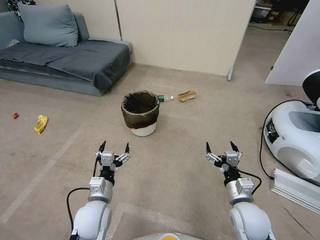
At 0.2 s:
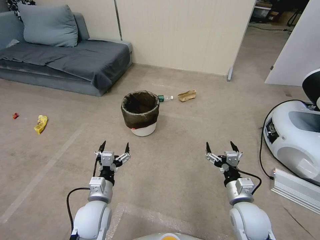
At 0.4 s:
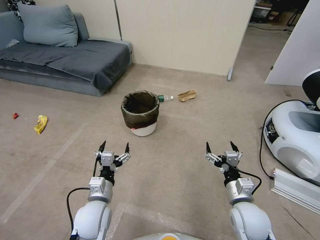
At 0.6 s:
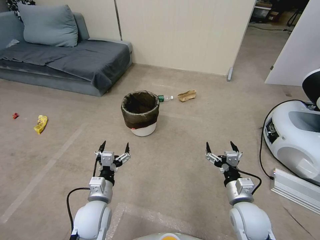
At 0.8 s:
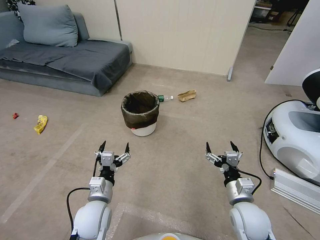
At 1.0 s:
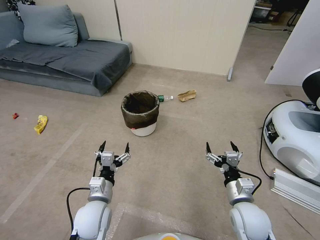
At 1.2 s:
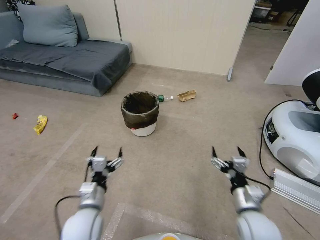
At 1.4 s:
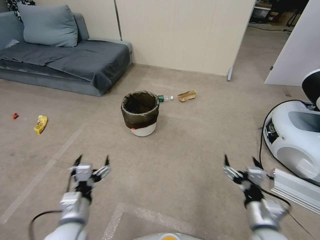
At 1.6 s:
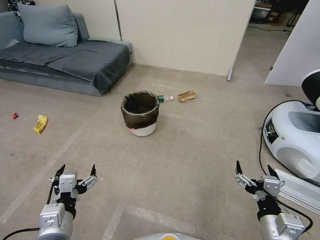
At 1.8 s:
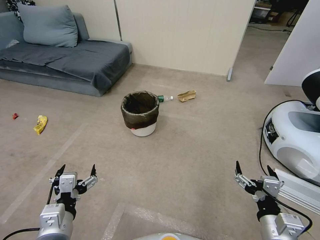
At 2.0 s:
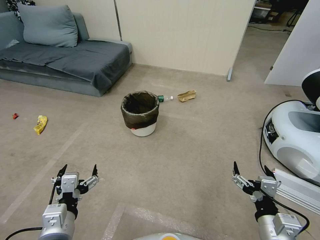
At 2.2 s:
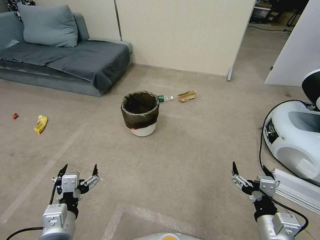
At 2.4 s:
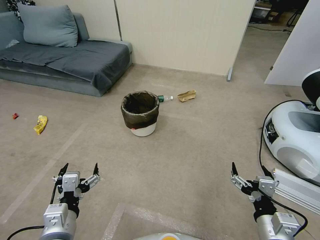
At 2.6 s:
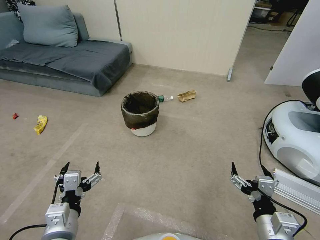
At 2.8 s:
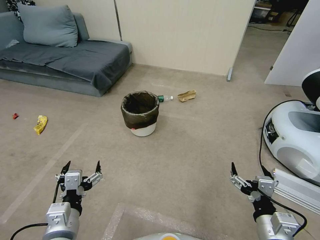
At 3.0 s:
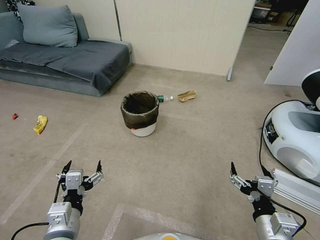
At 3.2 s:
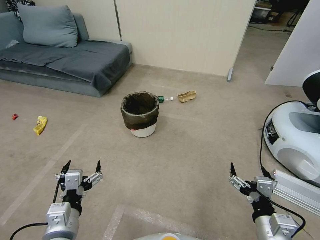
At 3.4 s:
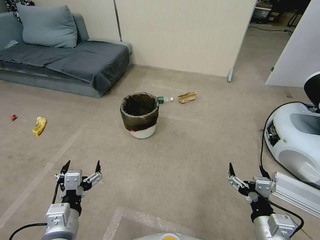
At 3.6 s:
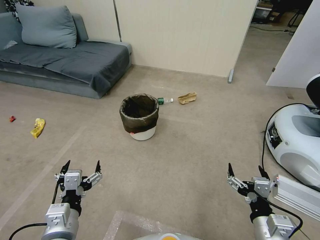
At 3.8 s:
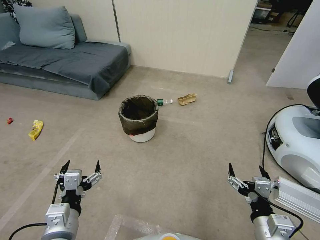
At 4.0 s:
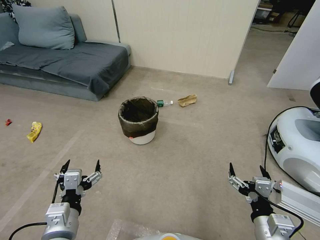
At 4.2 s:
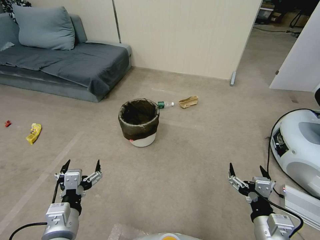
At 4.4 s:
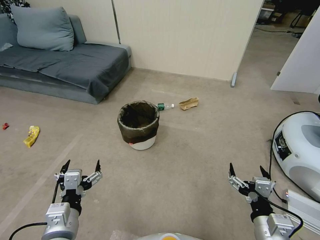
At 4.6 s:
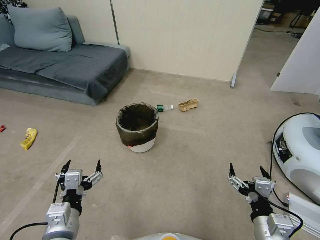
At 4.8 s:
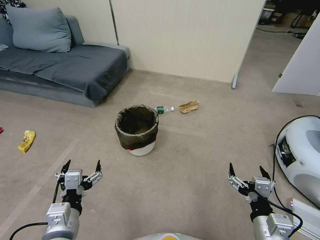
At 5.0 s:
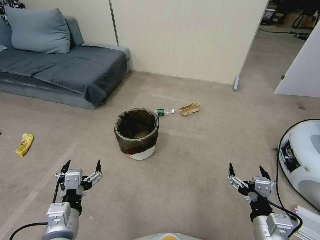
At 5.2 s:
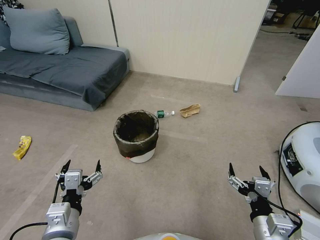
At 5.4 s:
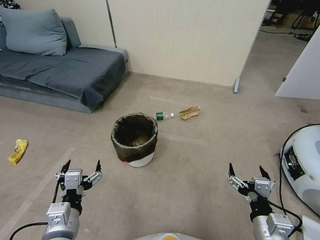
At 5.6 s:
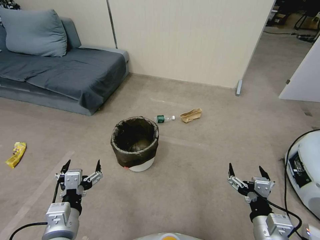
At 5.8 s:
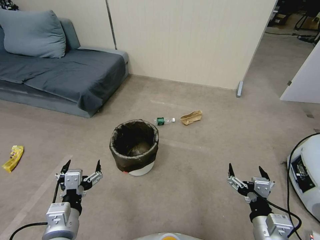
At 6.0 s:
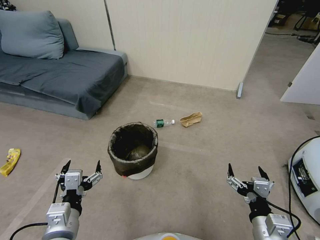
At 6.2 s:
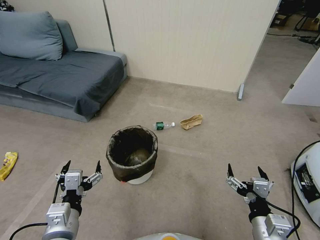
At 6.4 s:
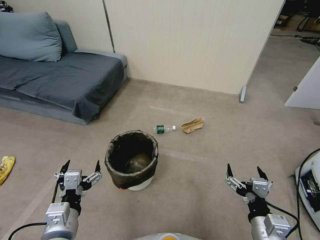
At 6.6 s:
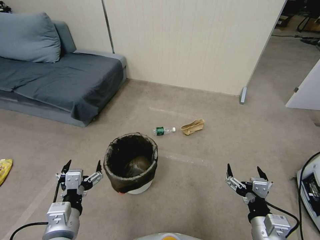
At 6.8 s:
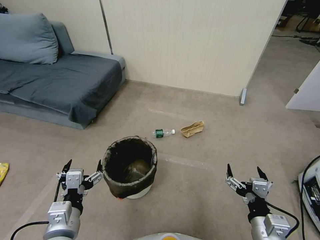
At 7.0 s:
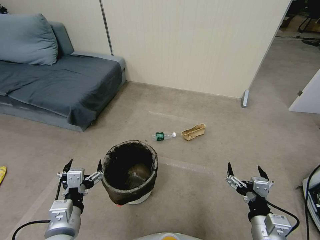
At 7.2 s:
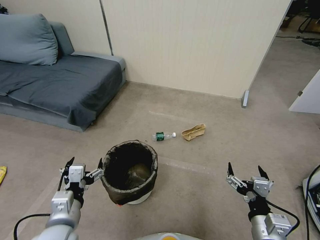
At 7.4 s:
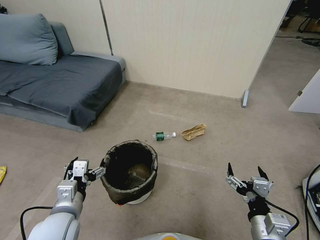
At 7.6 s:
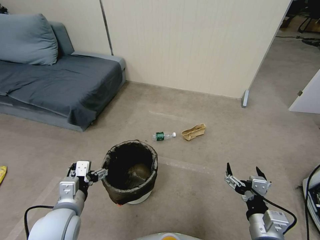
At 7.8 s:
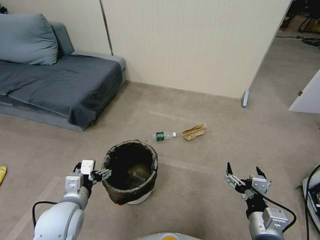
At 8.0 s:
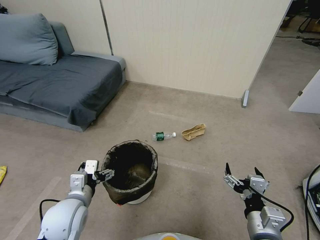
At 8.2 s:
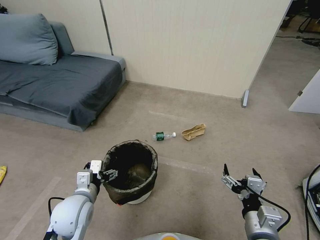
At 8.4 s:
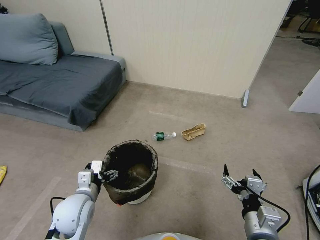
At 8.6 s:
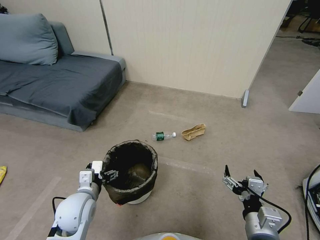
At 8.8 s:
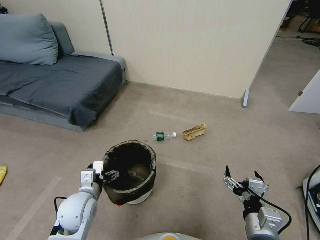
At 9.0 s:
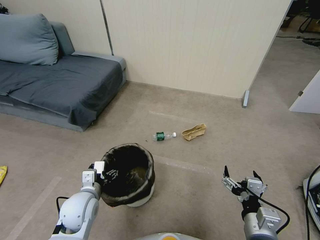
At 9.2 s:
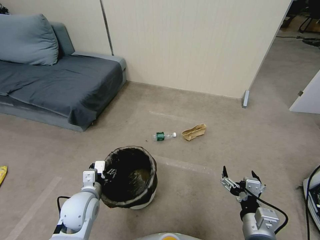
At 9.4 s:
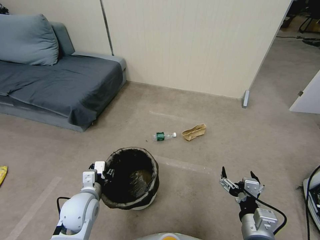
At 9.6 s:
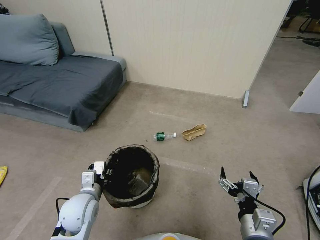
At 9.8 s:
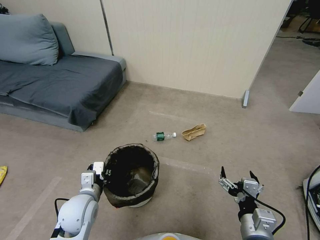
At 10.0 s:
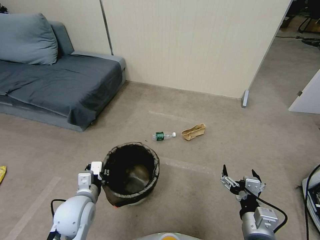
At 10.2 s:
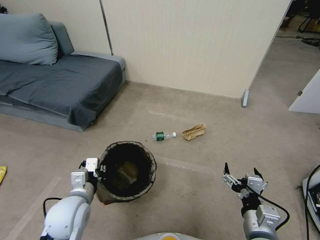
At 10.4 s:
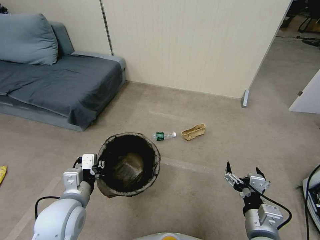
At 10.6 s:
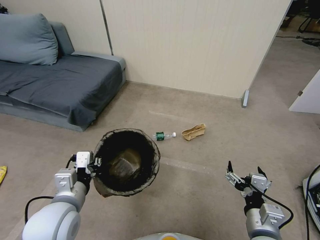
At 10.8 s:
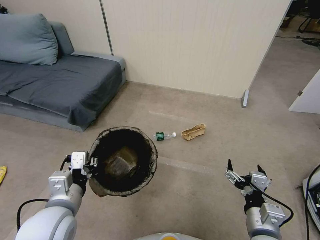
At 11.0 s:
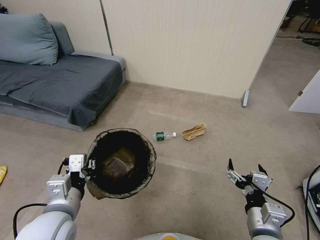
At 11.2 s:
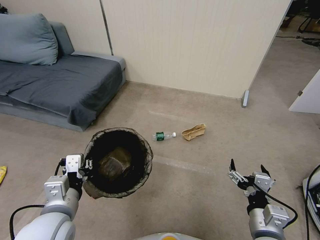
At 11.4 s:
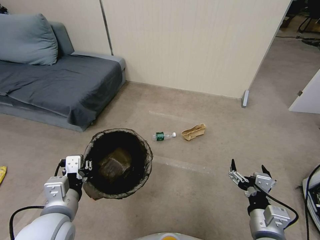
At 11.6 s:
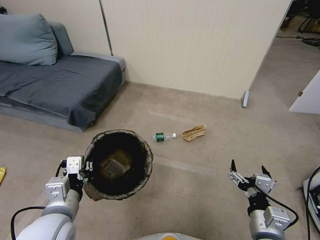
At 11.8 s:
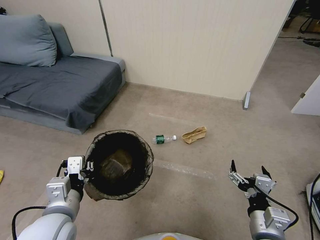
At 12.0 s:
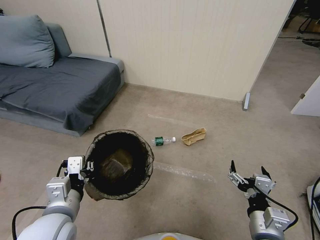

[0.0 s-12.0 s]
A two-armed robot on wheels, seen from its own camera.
Task of the whole recording: Pick up the trash bin, then pick up the garbage from the floor and place it into the trash bin.
1.6 to 3.0 s: The grippers make only small movements.
6.0 to 7.6 s: The left gripper is displaced forward by approximately 5 cm.
7.6 to 9.0 s: The left gripper goes about 10 cm downward and forward.
9.0 to 10.4 s: The left gripper shifts about 10 cm upward, and closes up.
10.4 to 12.0 s: The left gripper moves roughly 5 cm.

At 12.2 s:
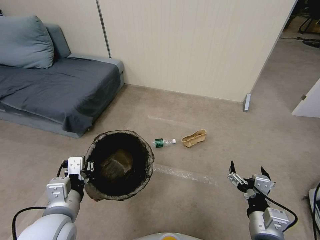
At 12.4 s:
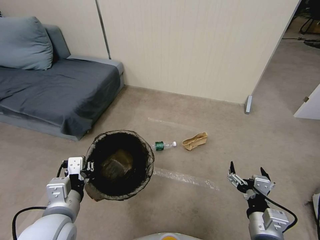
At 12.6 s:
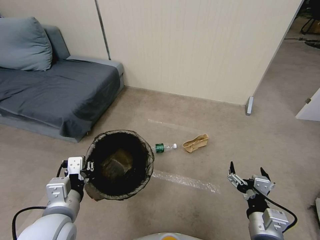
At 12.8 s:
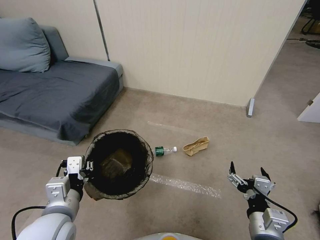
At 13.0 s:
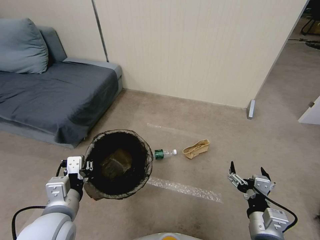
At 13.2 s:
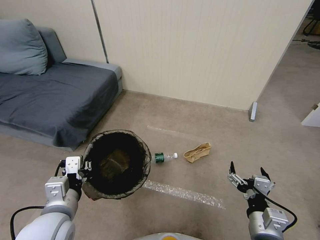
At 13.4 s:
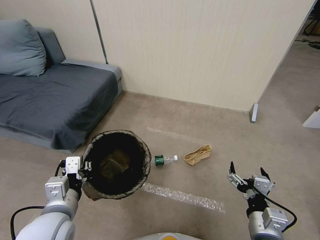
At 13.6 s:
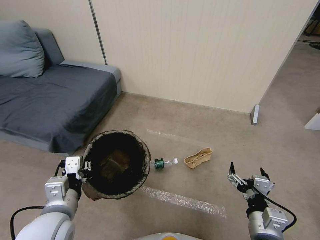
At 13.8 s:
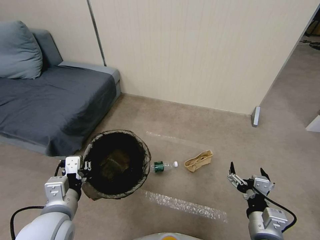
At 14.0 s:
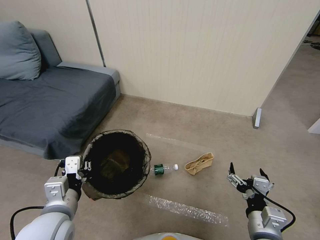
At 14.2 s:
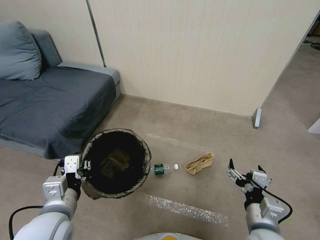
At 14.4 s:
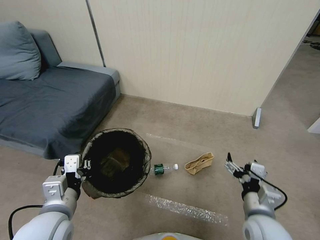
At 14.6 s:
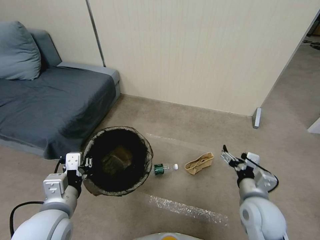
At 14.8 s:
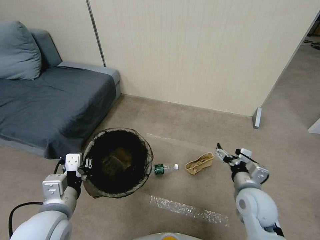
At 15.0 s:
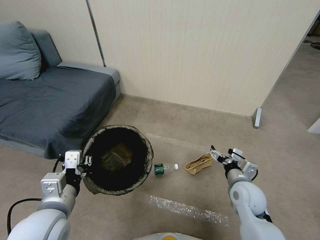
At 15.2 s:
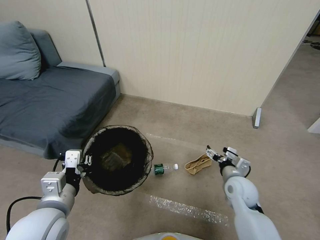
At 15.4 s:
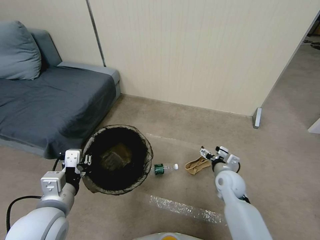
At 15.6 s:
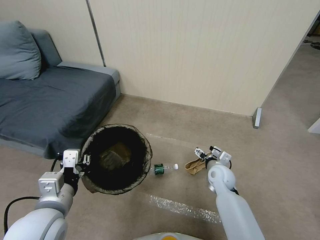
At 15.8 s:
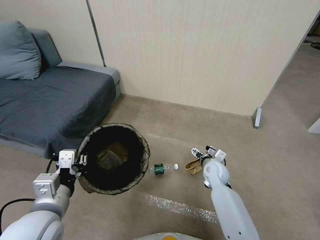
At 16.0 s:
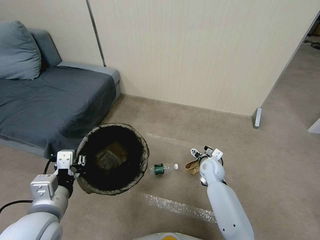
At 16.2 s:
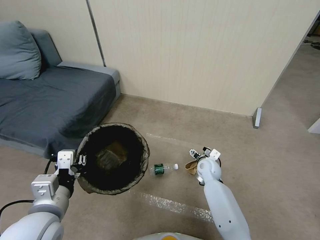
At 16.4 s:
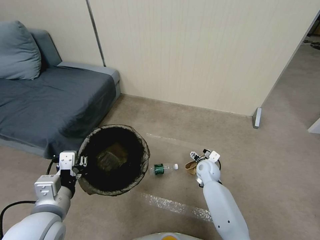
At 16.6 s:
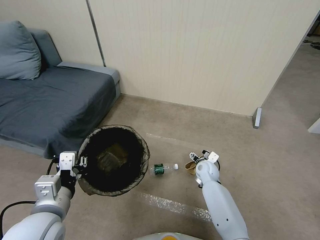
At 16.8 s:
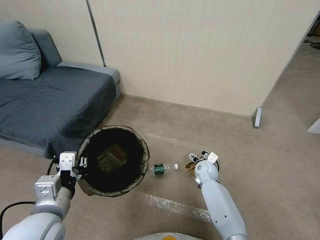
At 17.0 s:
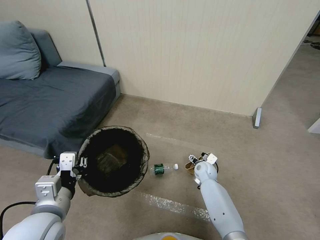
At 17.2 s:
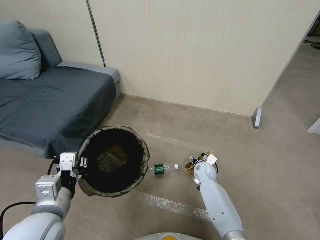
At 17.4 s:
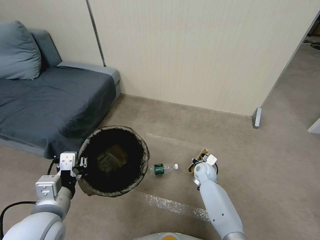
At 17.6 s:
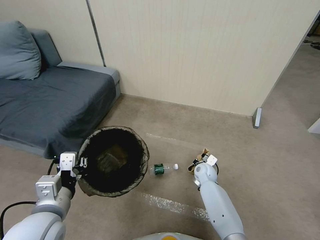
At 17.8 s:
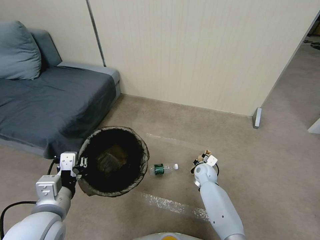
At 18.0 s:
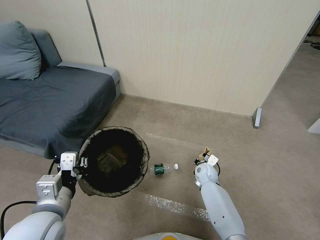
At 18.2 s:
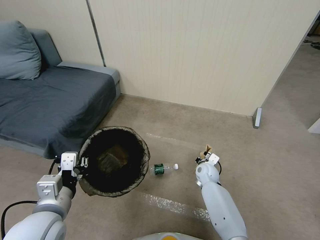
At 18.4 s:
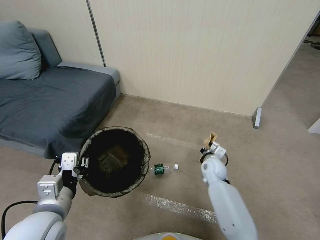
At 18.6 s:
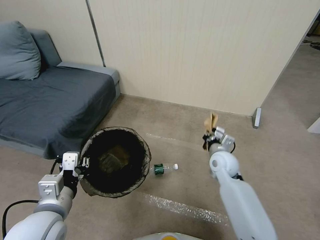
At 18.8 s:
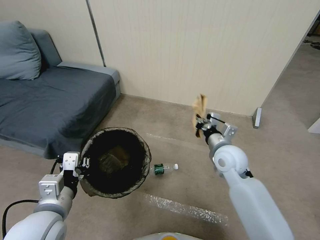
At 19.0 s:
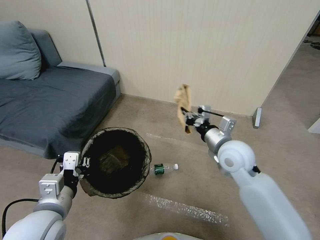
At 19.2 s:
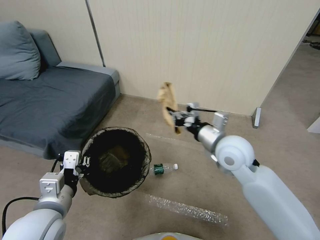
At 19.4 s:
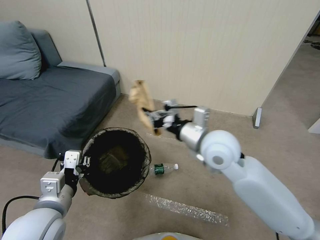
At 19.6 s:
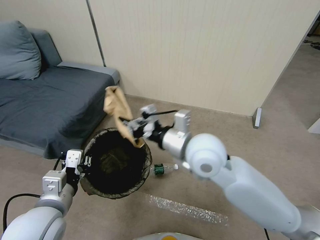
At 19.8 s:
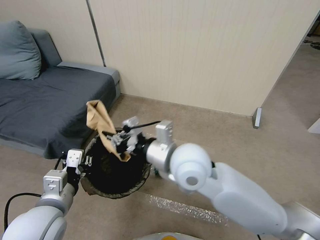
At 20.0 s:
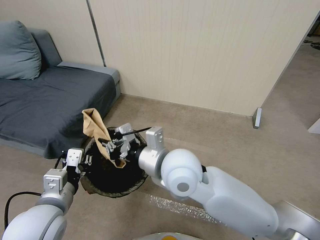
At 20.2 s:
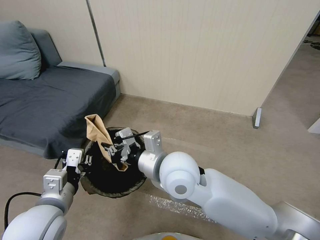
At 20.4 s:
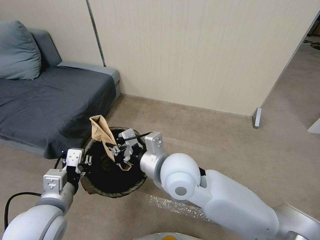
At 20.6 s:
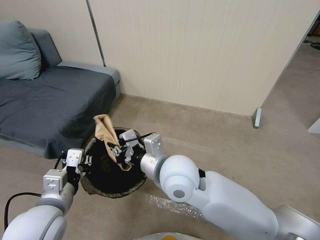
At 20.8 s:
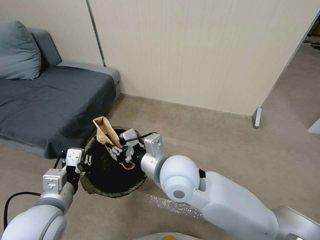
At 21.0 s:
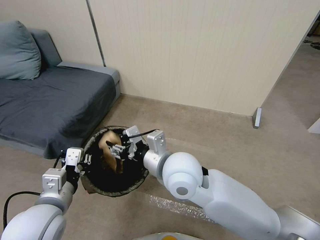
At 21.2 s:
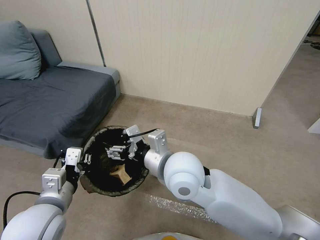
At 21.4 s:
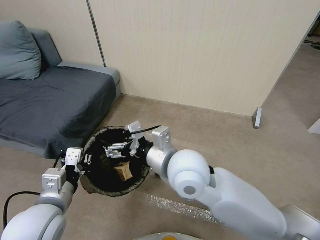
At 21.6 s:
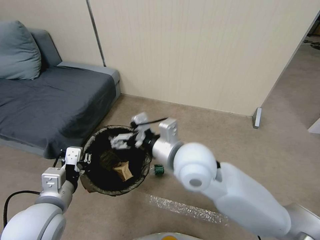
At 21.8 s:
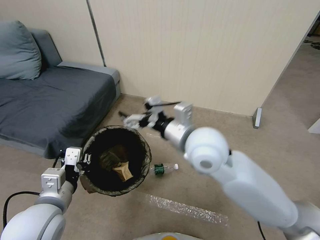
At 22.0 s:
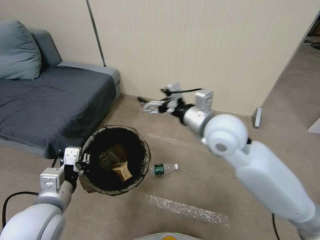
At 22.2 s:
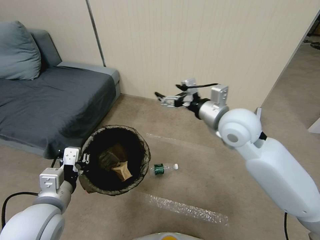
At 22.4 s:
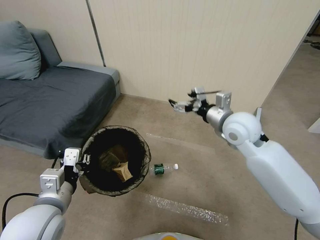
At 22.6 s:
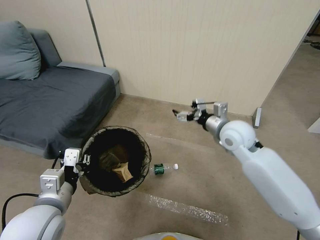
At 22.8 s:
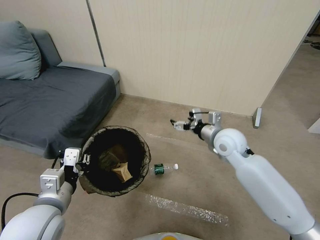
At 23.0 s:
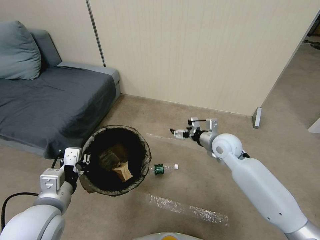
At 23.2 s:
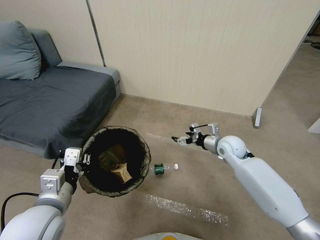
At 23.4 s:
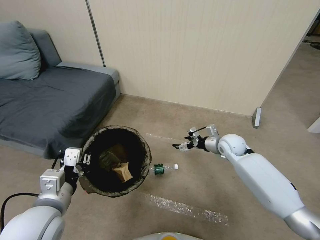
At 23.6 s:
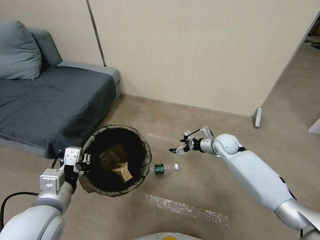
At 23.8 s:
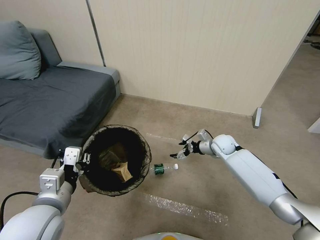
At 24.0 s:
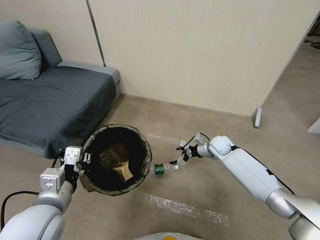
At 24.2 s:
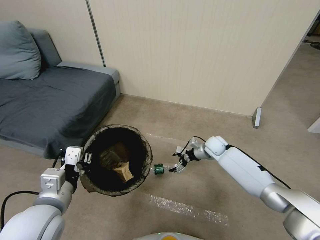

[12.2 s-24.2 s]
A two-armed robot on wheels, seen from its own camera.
Task of the whole recording: Pick up the trash bin, then pick up the garbage from the floor and place it into the trash bin.
13.8 to 15.2 s: The right gripper heads forward, covering approximately 20 cm.
15.2 to 16.6 s: The right gripper moves forward, downward and to the left, roughly 15 cm.
16.6 to 18.2 s: The right gripper closes up.
18.2 to 19.8 s: The right gripper travels upward and to the left by roughly 35 cm.
19.8 to 21.2 s: The right gripper opens its fingers.
21.2 to 22.6 s: The right gripper shifts roughly 20 cm to the right and forward.
22.6 to 24.2 s: The right gripper is displaced downward and forward by roughly 25 cm.
